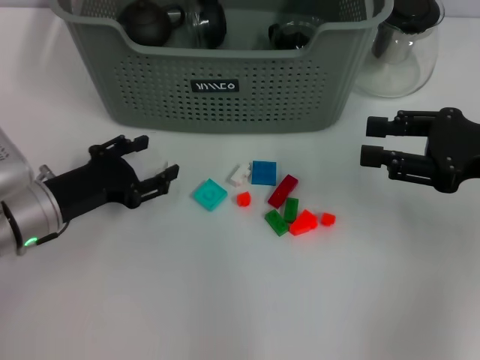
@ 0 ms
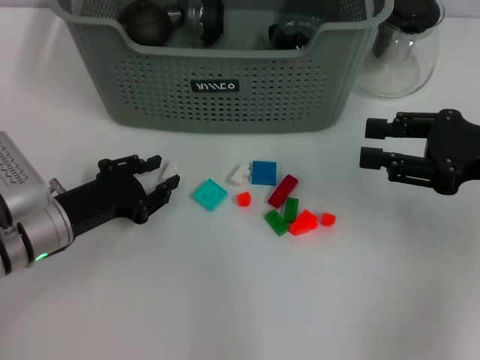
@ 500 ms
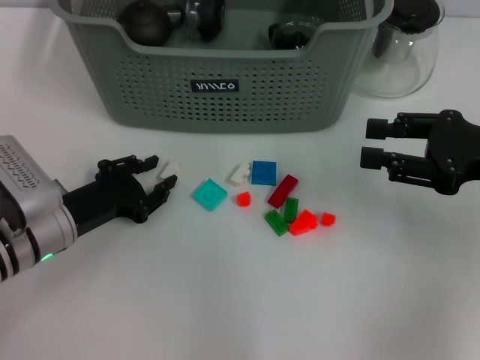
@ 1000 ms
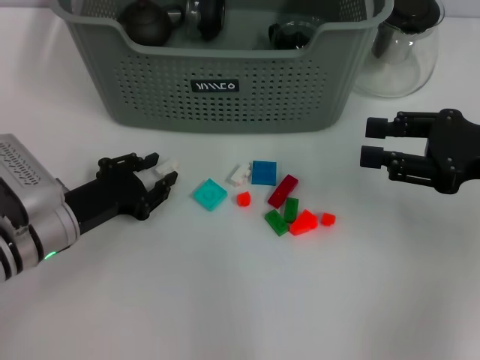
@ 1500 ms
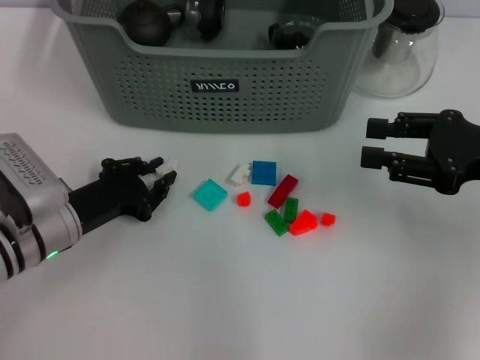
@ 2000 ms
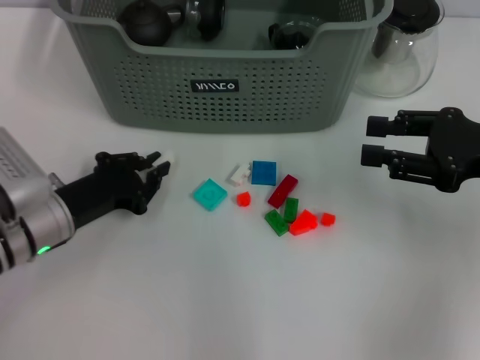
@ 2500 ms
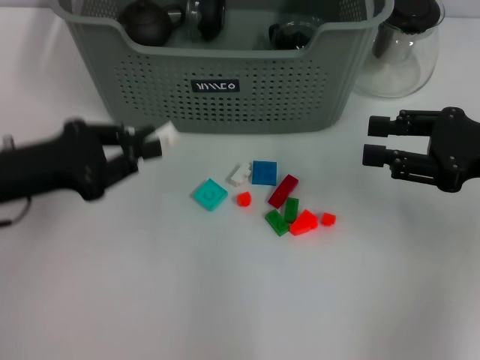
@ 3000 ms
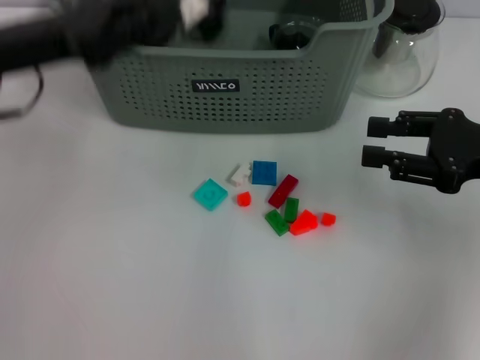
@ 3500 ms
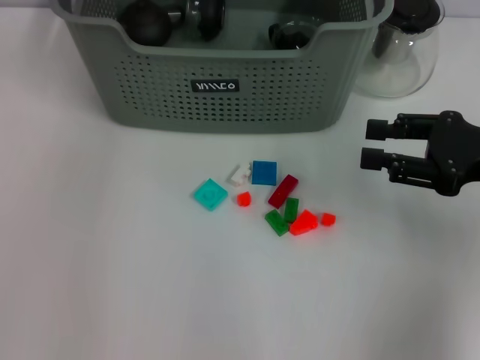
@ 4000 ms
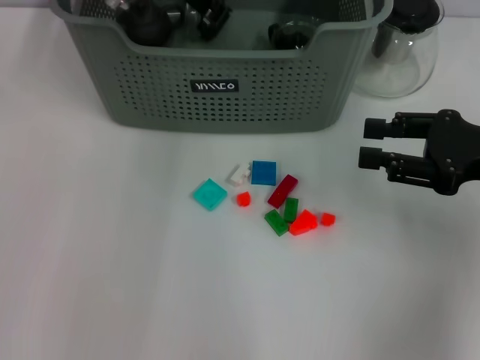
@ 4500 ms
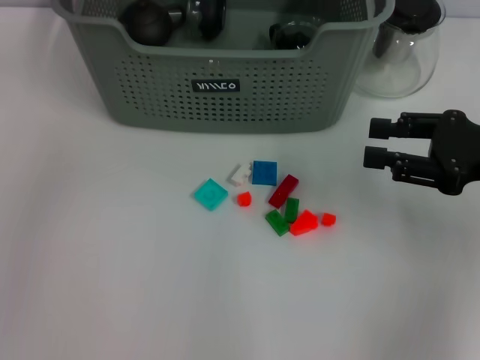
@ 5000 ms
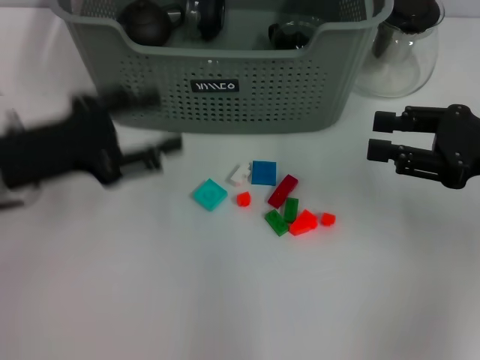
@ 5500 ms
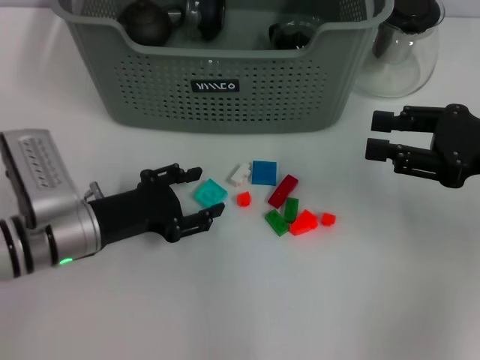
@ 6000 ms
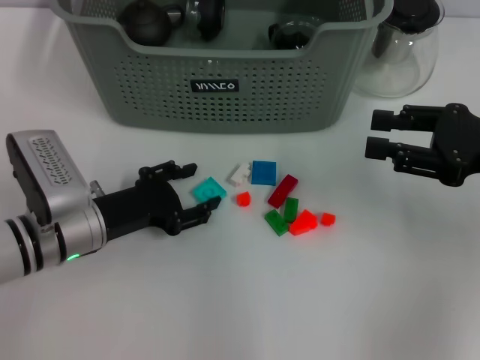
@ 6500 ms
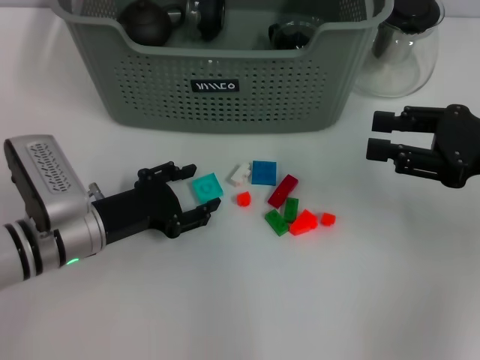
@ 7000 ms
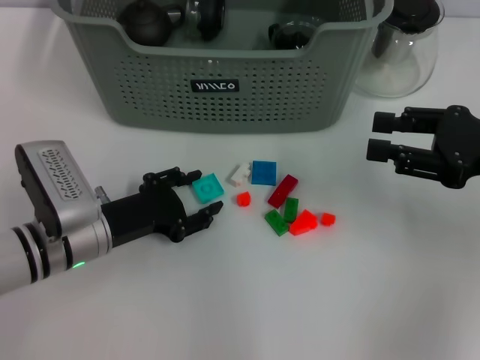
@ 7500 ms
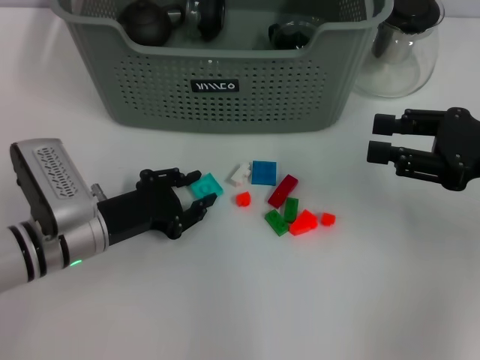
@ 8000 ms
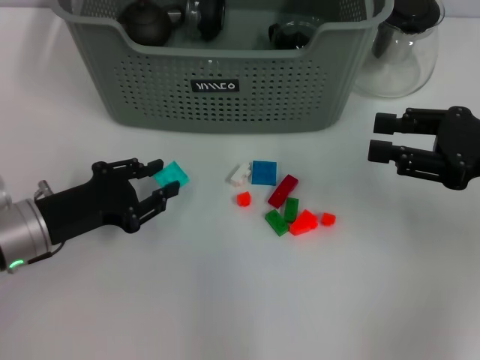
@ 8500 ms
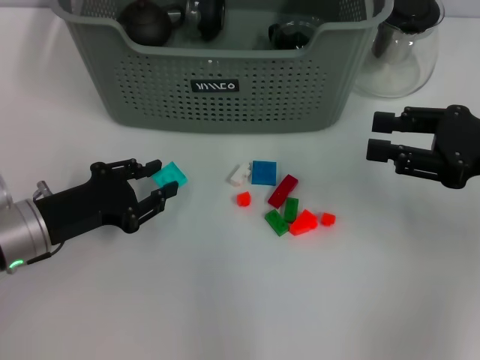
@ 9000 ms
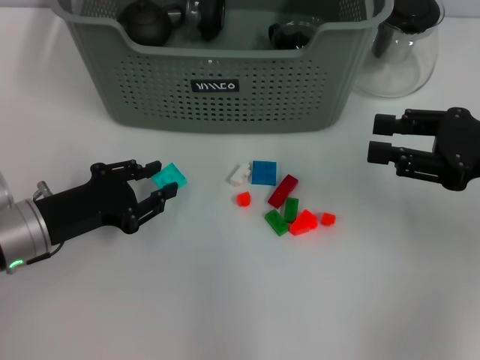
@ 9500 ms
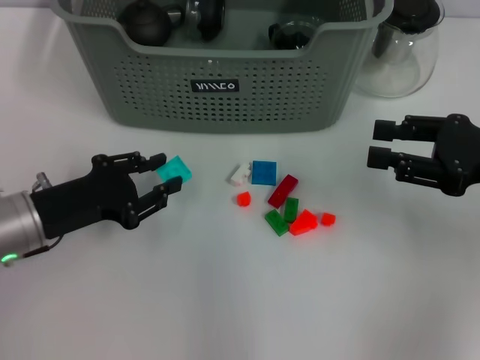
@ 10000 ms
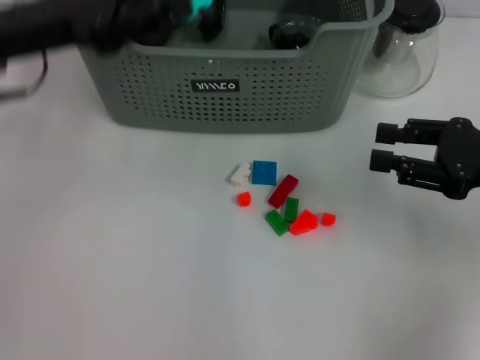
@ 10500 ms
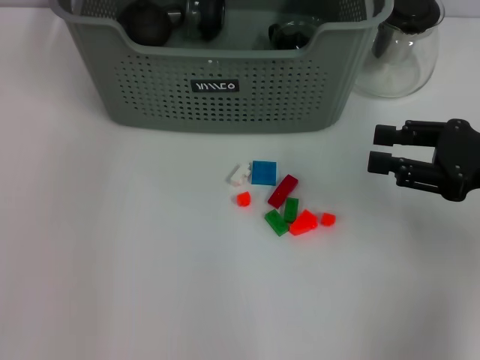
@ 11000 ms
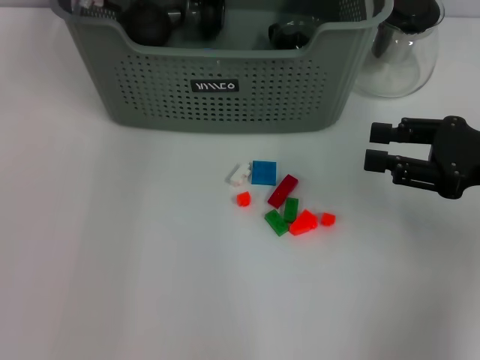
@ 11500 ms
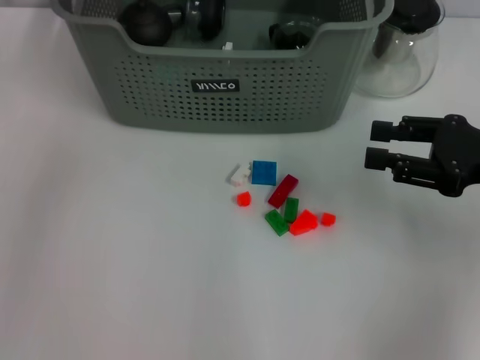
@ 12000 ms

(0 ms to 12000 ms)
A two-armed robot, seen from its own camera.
Task of the whole recording: pick up the teacup on the table and place it into the storage bin, pick up the block on the table and place it into the storage bin.
Step, 0 ms - 2000 ms: Grasp the white block with left gripper.
Step, 2500 ms - 4500 ms: Place the white block in the storage box with left gripper.
Step, 5000 ms - 7500 ms: Grasp the light blue block with left gripper.
Step, 8000 ms - 11500 ms: Place the light blue block in the storage box with left gripper.
0 ms - 2000 ms: The left gripper closes up.
2000 ms - 4000 ms: The left gripper travels upward and forward by approximately 30 cm.
4000 ms - 6000 ms: The left gripper swings up and down, about 25 cm each way, with 2 reversals, and opens its fingers.
6000 ms - 8000 ms: There are only small adjustments of the grippers.
8000 ms - 10000 ms: The left gripper moves about 5 cm.
10000 ms - 12000 ms: The left gripper travels upward and forward by approximately 25 cm.

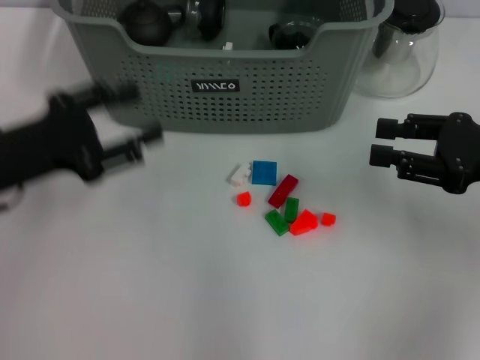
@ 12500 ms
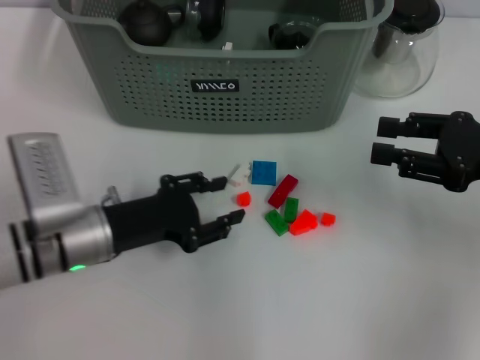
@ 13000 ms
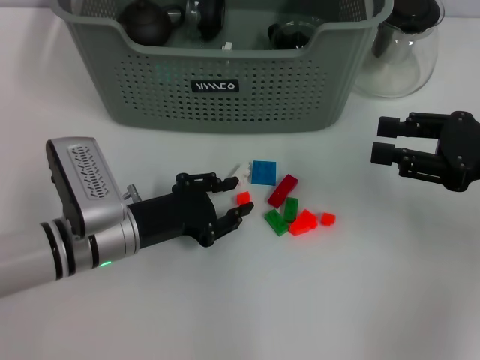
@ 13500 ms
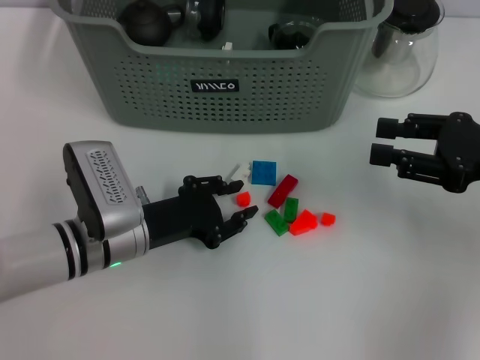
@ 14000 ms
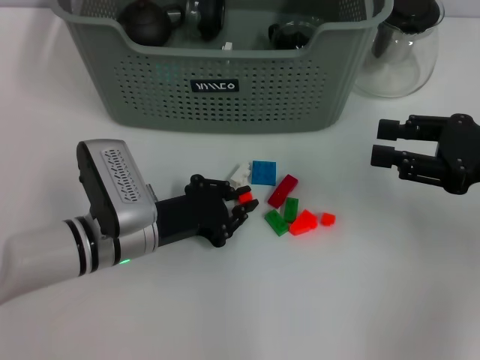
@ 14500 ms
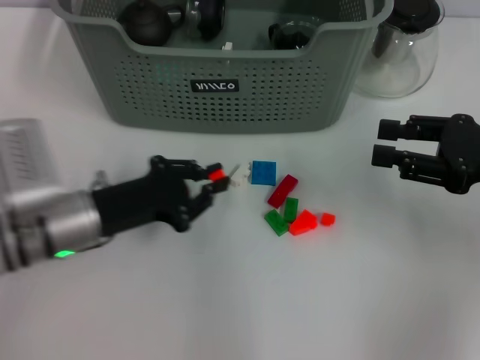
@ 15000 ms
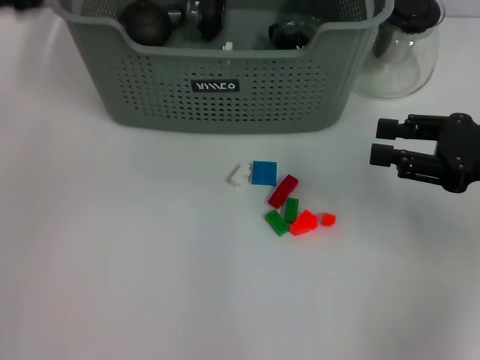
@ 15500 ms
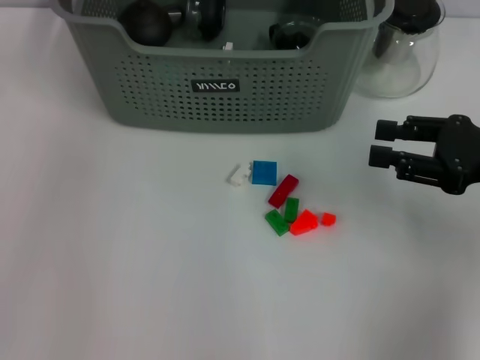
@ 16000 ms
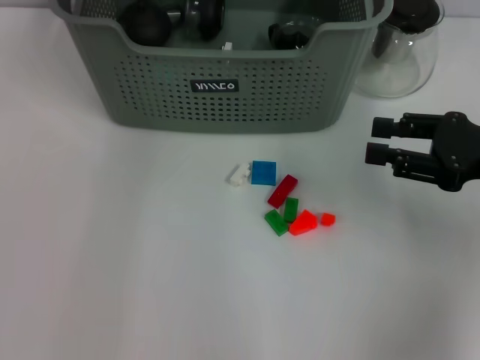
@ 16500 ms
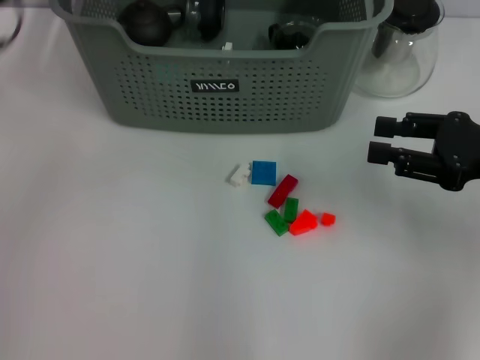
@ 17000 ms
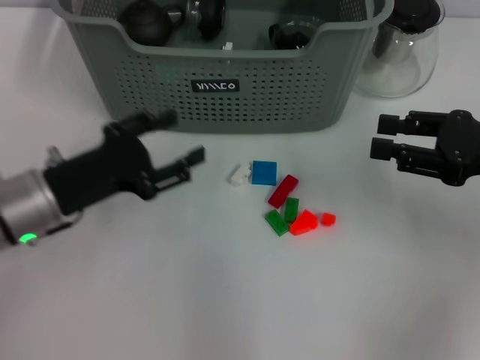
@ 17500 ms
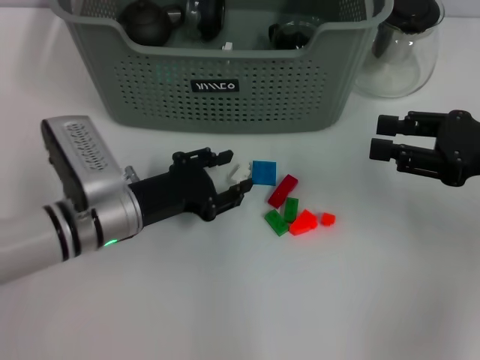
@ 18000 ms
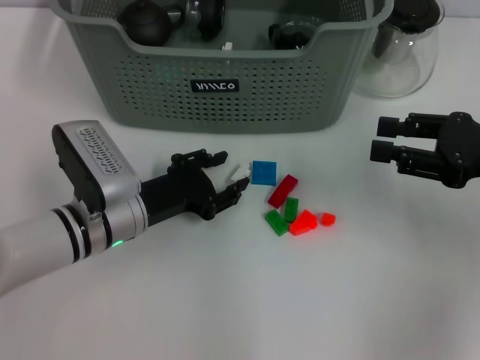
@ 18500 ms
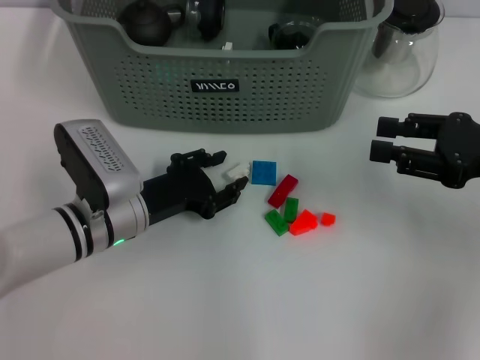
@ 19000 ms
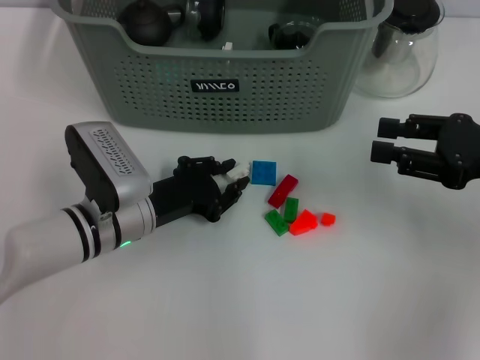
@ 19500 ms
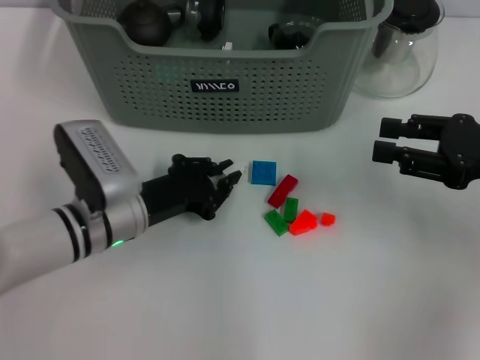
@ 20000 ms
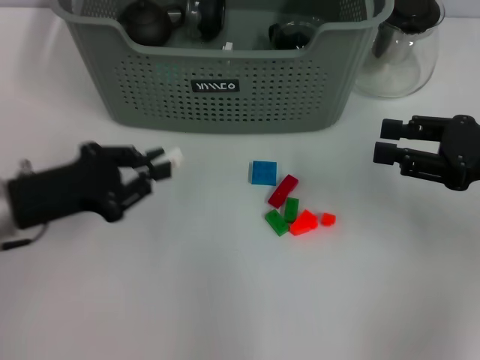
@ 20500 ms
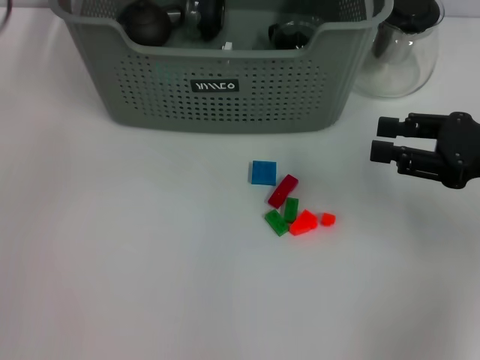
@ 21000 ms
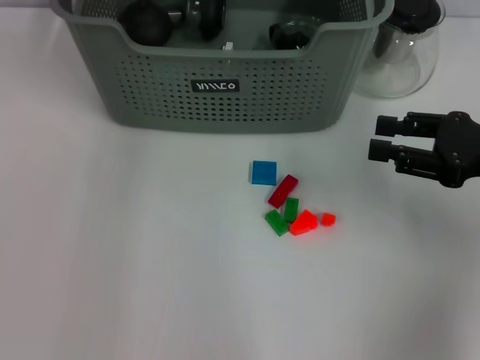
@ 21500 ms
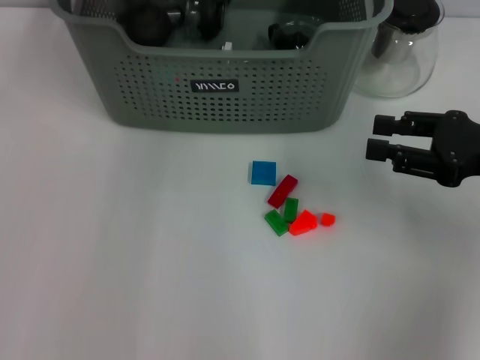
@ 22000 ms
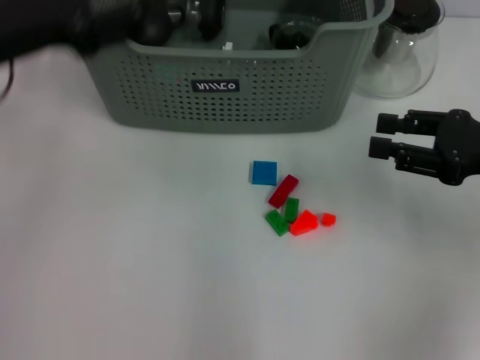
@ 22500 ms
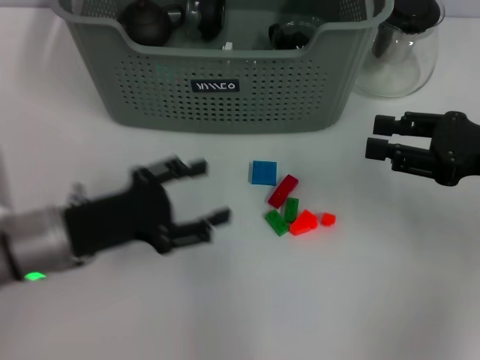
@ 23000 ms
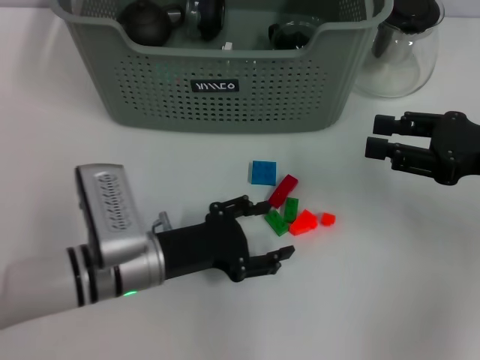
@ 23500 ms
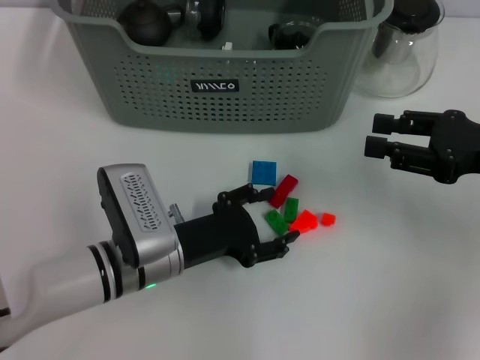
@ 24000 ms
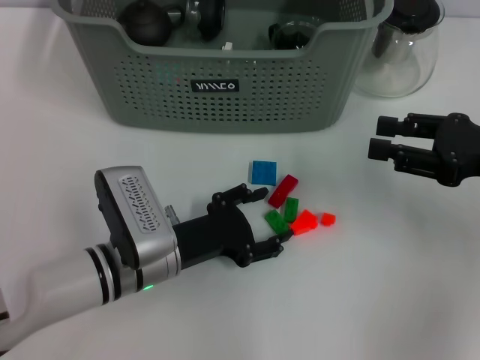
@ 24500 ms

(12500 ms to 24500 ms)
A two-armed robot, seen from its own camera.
Task of the whole recording: pick up the teacup on the table and place it into the storage bin, pick up the block on the table and place it into the storage bin.
Step, 12500 ms - 14000 ms: Grasp the orange block with left gripper.
Step, 15000 ms - 16000 ms: Place the orange block in the storage box with left gripper.
Step, 16500 ms - 19500 ms: Grasp the white block with left gripper.
Step, 20000 ms - 21500 ms: Place the white block in the storage box with left gripper.
12500 ms - 14500 ms: The left gripper moves to the right and downward, roughly 15 cm, and closes up.
14500 ms - 16500 ms: The left gripper travels upward and forward by some 30 cm.
16500 ms - 18500 ms: The left gripper is displaced downward and backward by roughly 30 cm.
18500 ms - 20500 ms: The left gripper goes some 10 cm to the left and upward, and closes.
20500 ms - 22500 ms: The left gripper goes about 10 cm upward, moves about 20 cm forward and comes back, and opens up.
22500 ms - 24500 ms: The left gripper is displaced downward and to the right by some 25 cm.

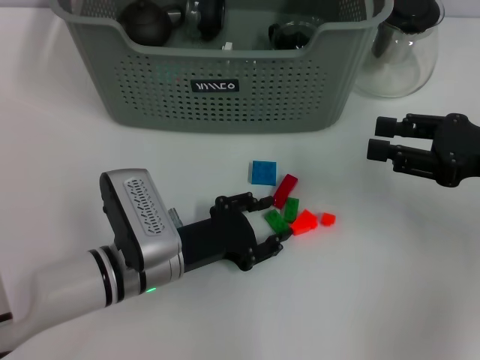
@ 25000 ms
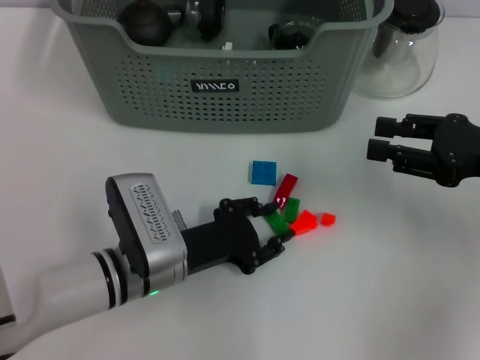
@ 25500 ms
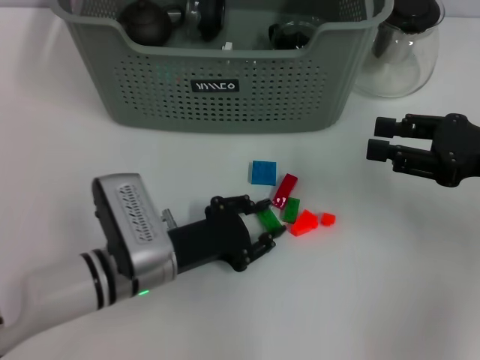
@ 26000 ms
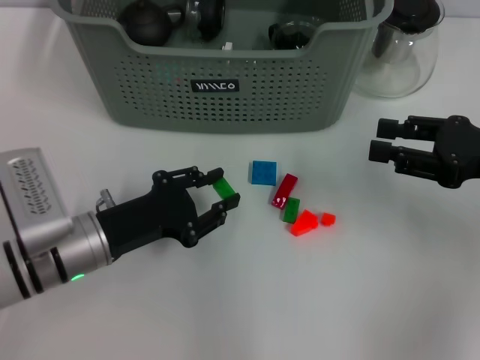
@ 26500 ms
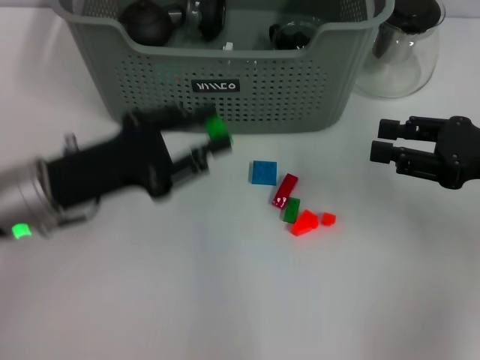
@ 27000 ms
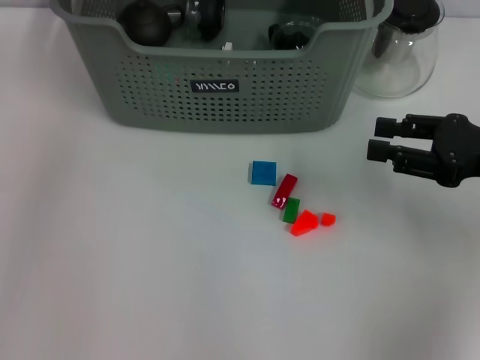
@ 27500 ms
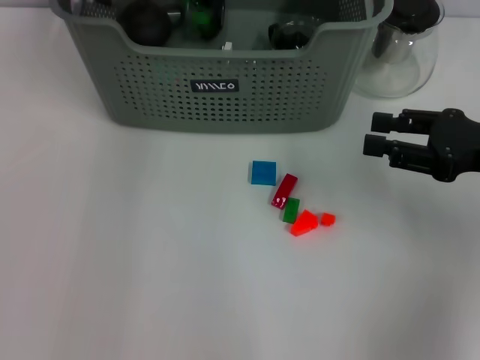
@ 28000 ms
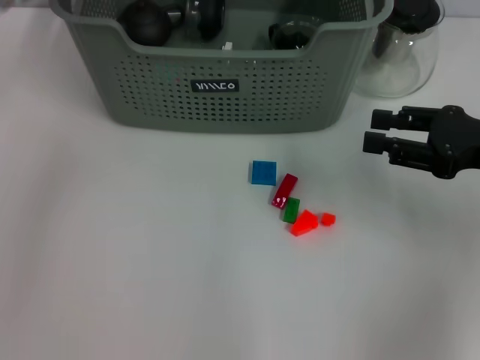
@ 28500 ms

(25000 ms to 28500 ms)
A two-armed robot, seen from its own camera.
Task of the whole recording: pick up the teacup on the table and place it into the storage bin, pick up the block on the table and place it into the storage bin.
Step, 26000 ms - 28000 ms: Place the green block in the storage box with left gripper.
25000 ms - 27000 ms: The left gripper is displaced upward and to the left by some 15 cm.
27000 ms - 28500 ms: The left gripper shifts approximately 20 cm upward and forward, and opens its fingers.
